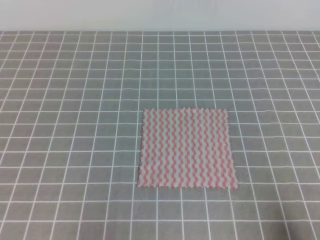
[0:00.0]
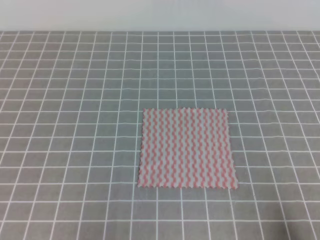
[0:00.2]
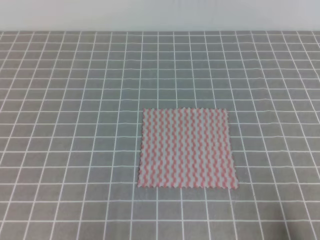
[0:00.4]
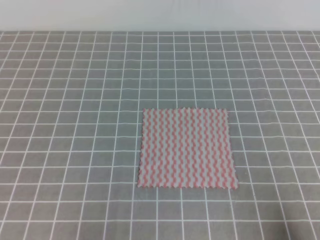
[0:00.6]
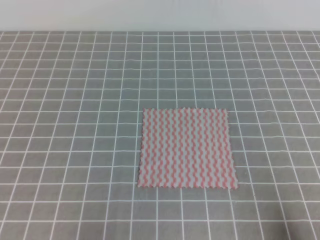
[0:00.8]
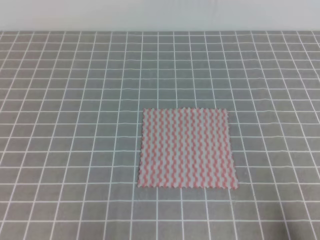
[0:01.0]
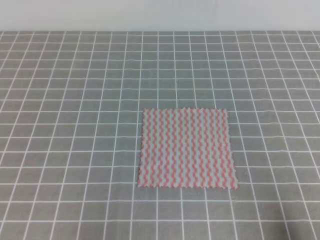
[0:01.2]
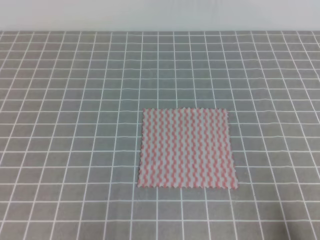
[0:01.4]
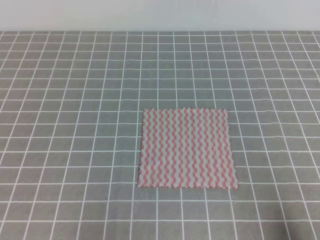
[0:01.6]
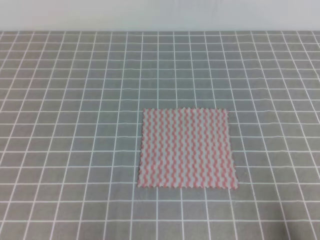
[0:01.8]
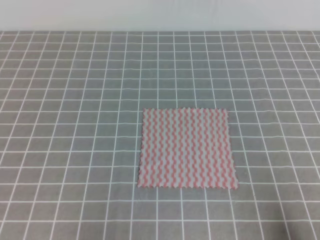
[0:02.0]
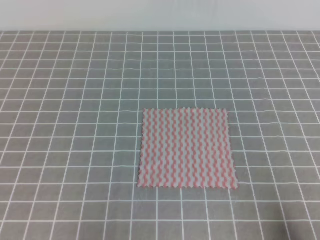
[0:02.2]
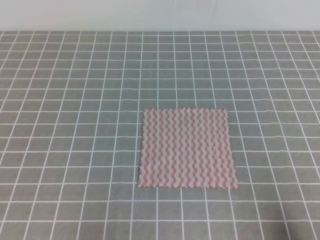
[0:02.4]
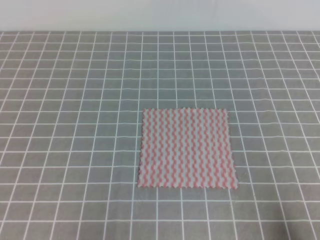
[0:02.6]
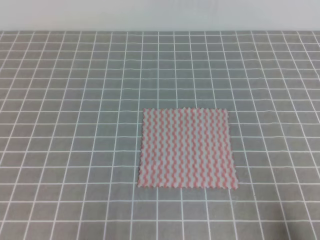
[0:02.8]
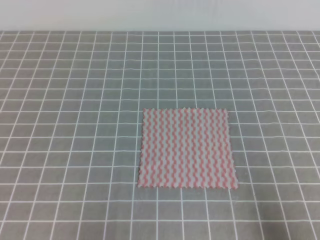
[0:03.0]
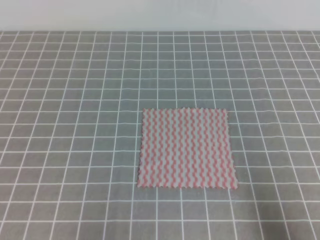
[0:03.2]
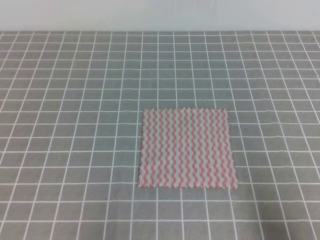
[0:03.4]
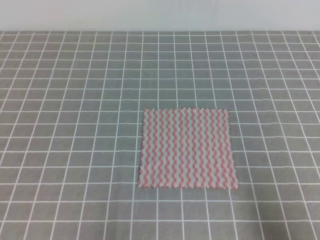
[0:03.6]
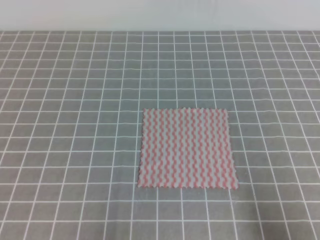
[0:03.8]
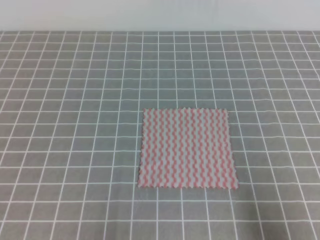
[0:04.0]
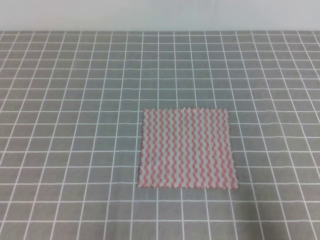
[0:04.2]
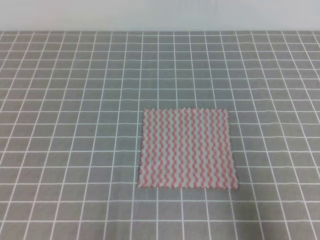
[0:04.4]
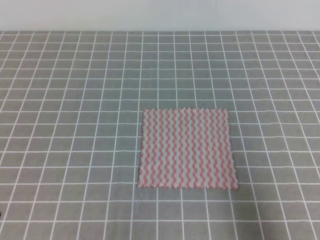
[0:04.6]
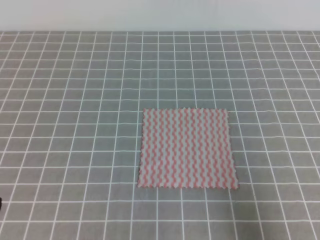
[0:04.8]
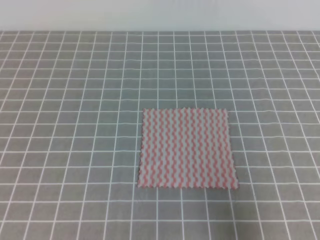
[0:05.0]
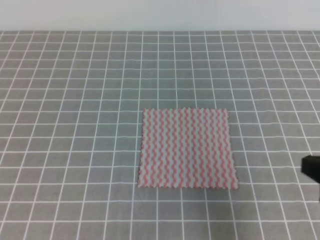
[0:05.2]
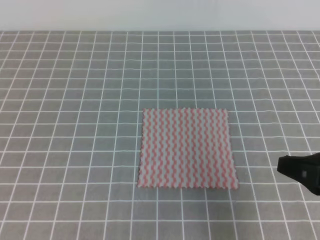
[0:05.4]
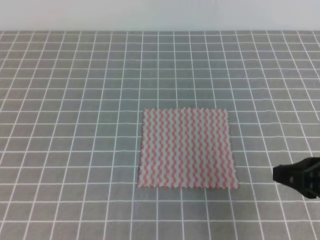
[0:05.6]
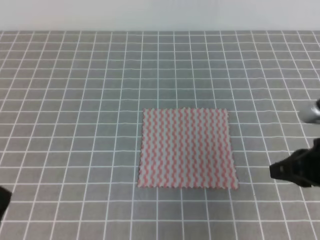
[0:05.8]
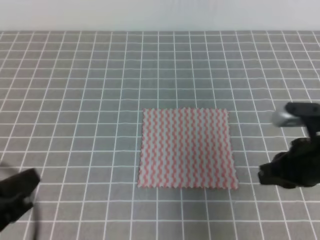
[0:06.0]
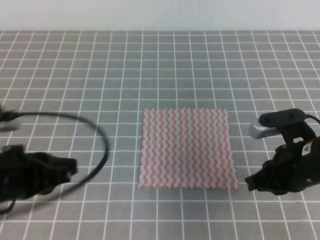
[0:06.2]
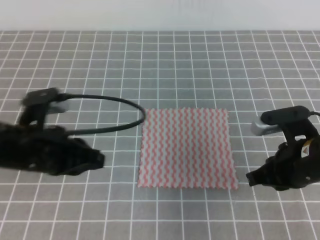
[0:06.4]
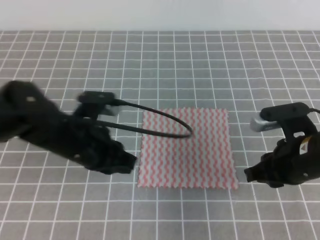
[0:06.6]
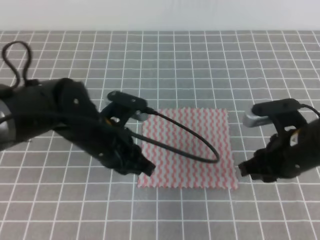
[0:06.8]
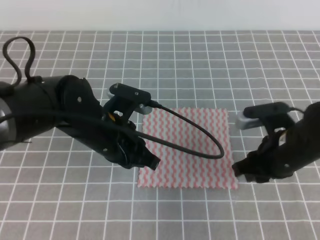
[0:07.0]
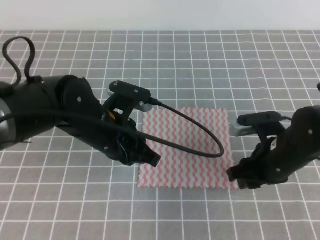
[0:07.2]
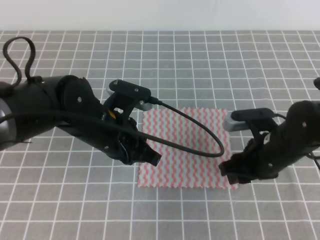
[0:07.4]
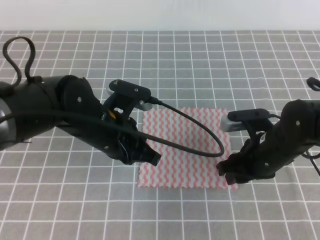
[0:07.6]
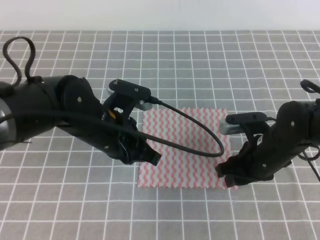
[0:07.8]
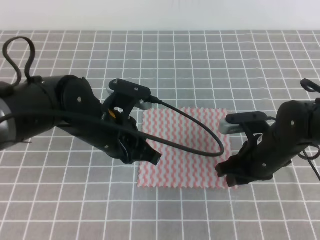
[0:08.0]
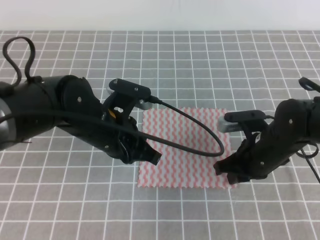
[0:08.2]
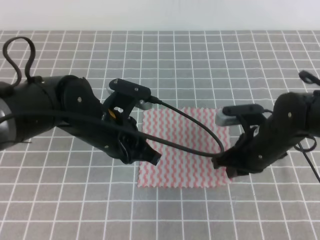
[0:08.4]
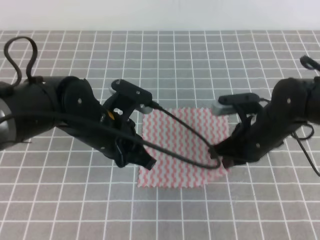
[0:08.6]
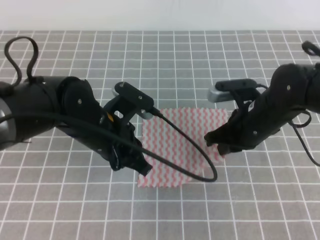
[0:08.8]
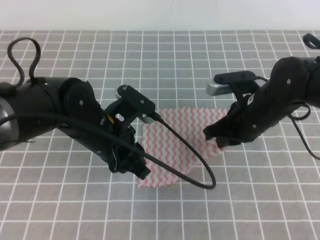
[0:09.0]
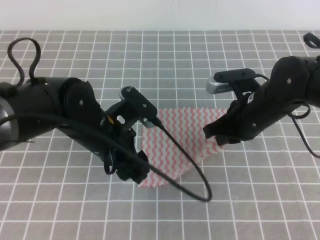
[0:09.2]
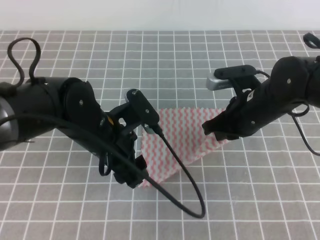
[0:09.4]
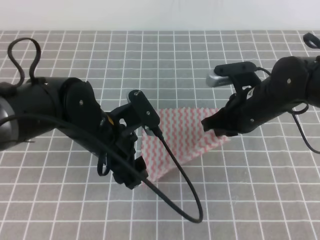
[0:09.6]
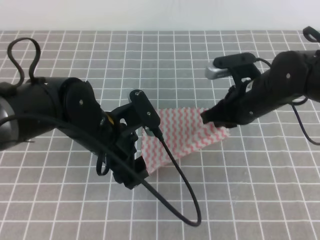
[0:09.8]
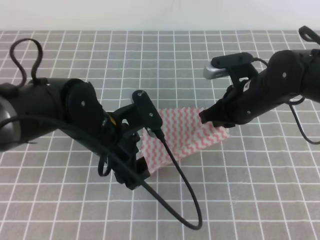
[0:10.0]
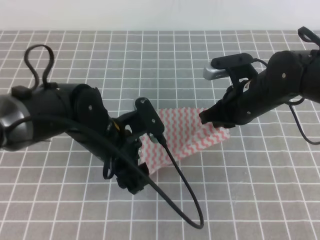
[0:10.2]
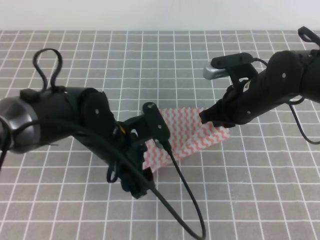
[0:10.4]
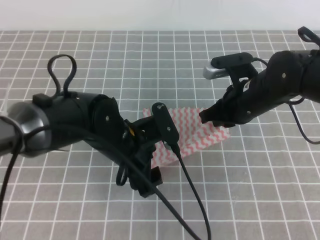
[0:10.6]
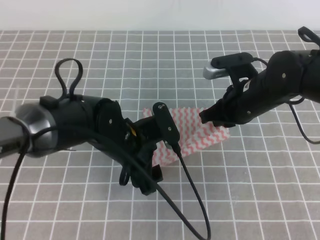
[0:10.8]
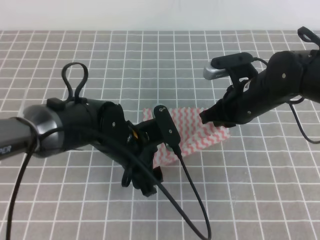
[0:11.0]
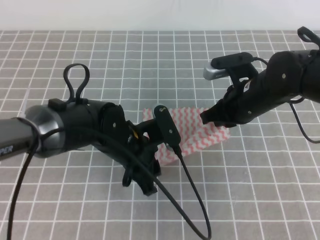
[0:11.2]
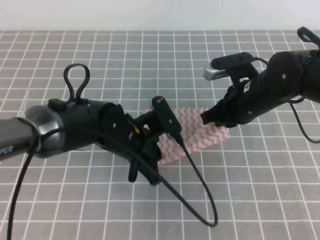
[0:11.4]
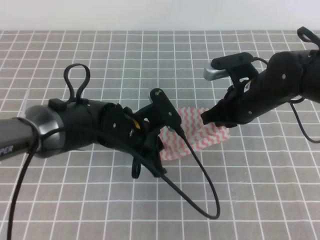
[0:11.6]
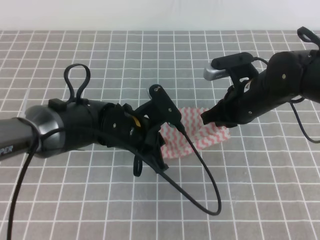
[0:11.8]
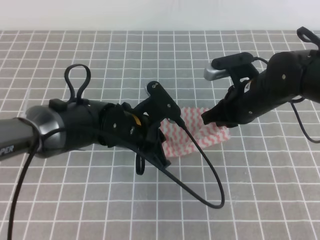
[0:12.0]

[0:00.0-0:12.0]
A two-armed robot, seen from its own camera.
0:00.0 to 0:01.6: Neither gripper changes place.
0:03.0 to 0:04.4: The right gripper goes roughly 5 cm upward.
0:04.4 to 0:06.0: The left gripper is displaced upward by some 5 cm; the right gripper is displaced forward and to the left by some 15 cm.
0:06.0 to 0:07.6: The right gripper heads forward, downward and to the left, covering approximately 10 cm, and opens its fingers; the left gripper goes about 25 cm forward and to the right.
0:07.6 to 0:09.0: The right gripper changes place by about 5 cm, and closes. Meanwhile the left gripper opens its fingers.
0:09.0 to 0:10.4: The left gripper opens its fingers.
0:10.4 to 0:12.0: The left gripper closes up.

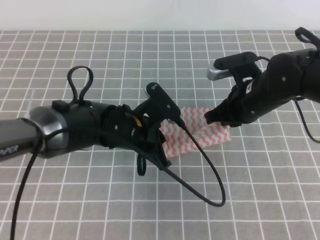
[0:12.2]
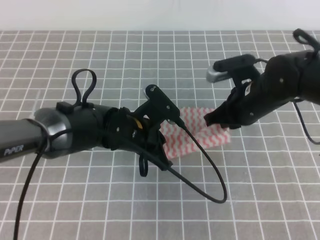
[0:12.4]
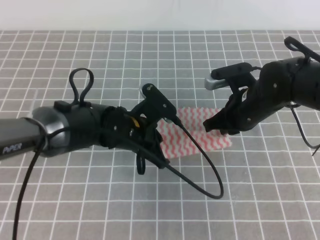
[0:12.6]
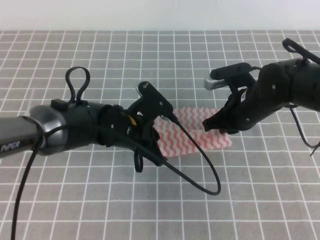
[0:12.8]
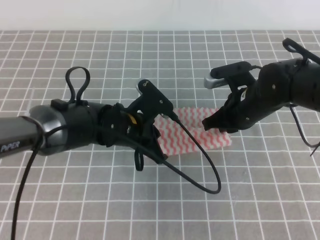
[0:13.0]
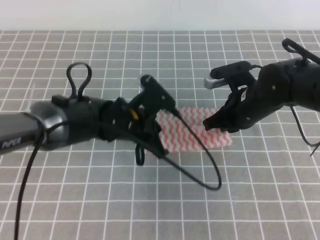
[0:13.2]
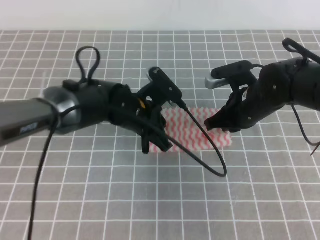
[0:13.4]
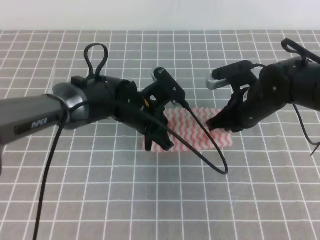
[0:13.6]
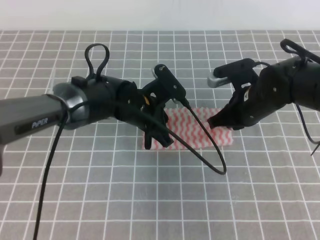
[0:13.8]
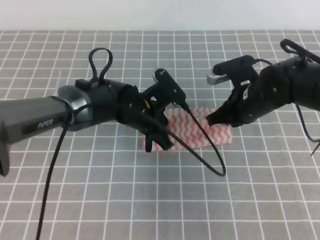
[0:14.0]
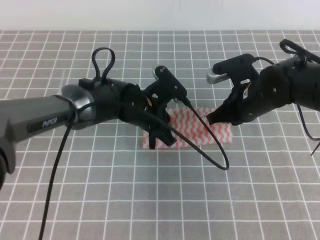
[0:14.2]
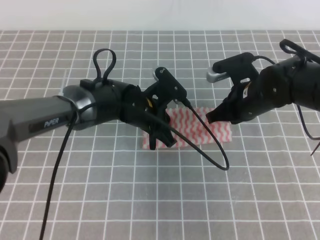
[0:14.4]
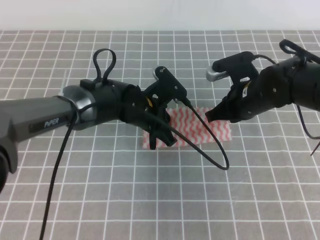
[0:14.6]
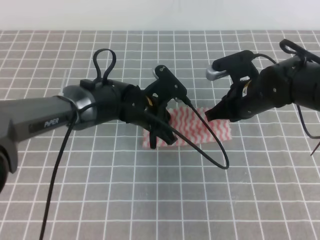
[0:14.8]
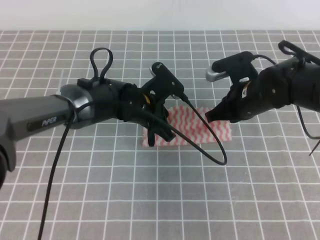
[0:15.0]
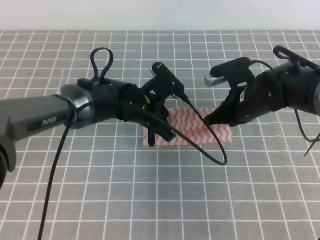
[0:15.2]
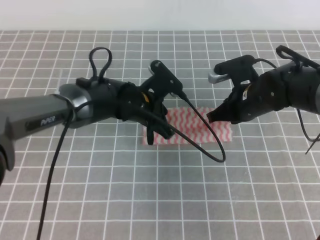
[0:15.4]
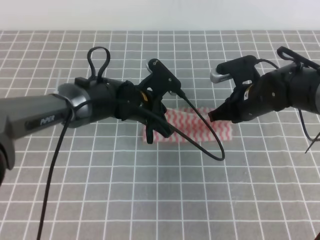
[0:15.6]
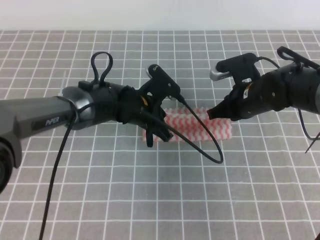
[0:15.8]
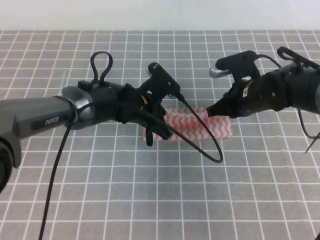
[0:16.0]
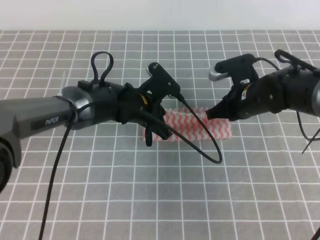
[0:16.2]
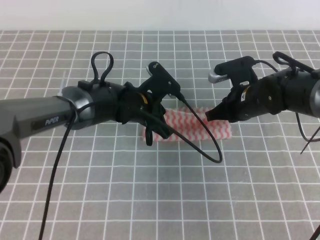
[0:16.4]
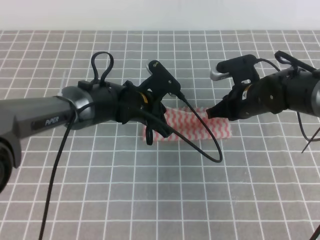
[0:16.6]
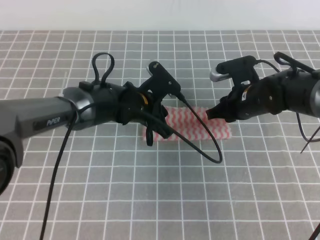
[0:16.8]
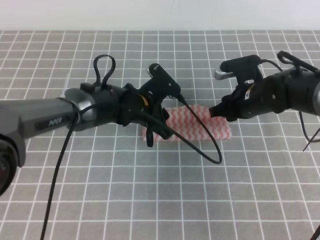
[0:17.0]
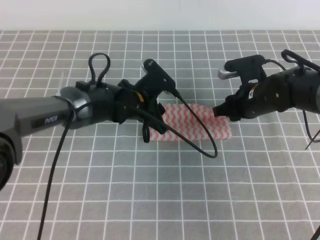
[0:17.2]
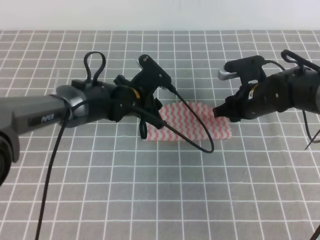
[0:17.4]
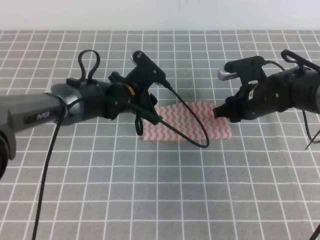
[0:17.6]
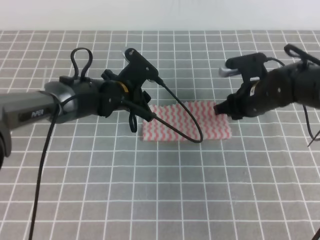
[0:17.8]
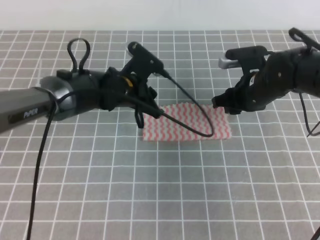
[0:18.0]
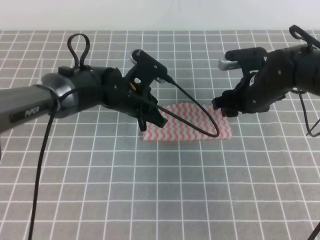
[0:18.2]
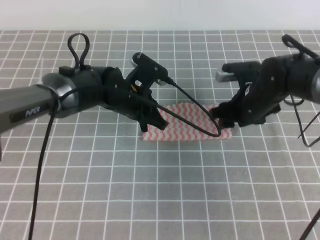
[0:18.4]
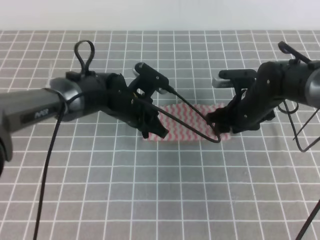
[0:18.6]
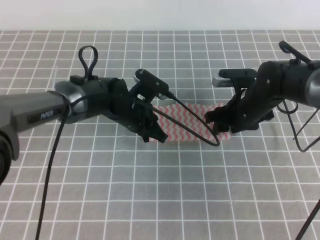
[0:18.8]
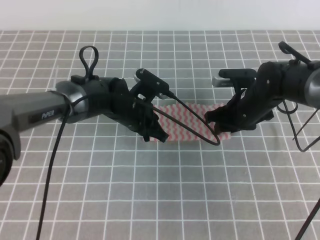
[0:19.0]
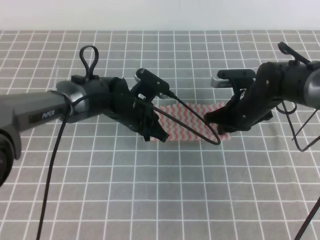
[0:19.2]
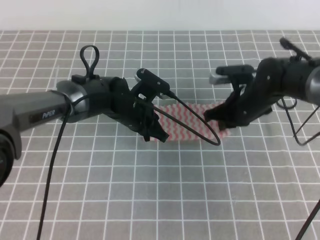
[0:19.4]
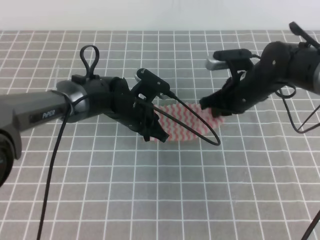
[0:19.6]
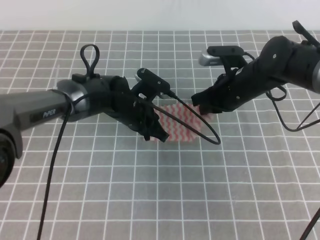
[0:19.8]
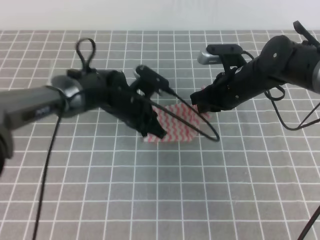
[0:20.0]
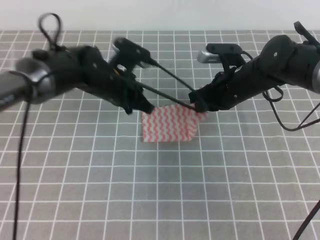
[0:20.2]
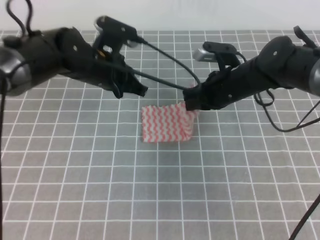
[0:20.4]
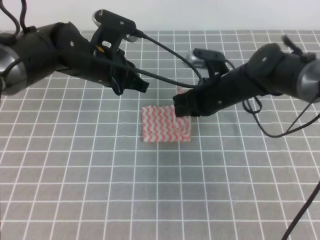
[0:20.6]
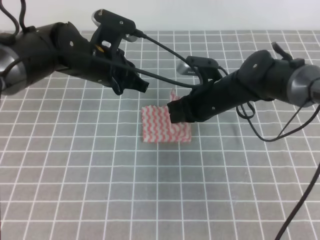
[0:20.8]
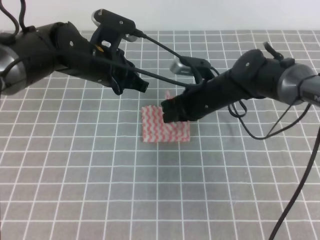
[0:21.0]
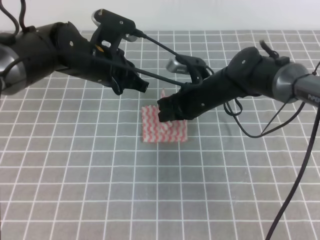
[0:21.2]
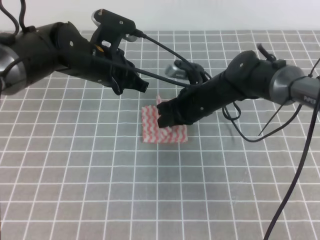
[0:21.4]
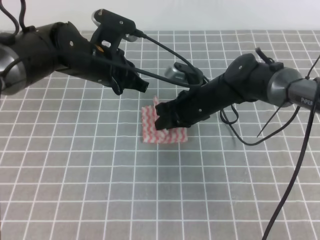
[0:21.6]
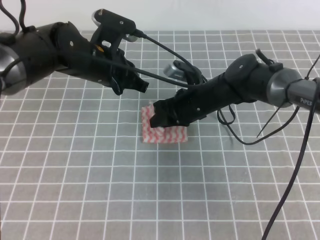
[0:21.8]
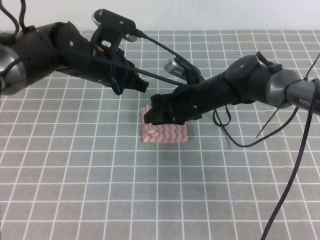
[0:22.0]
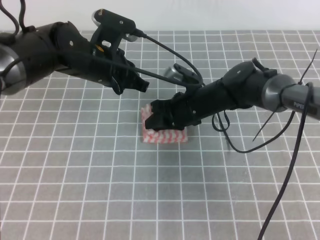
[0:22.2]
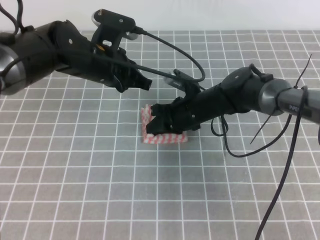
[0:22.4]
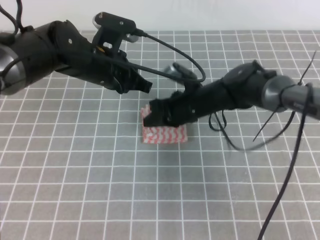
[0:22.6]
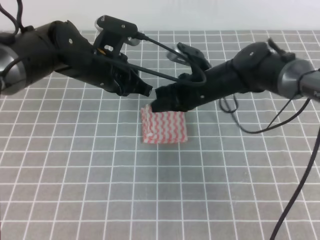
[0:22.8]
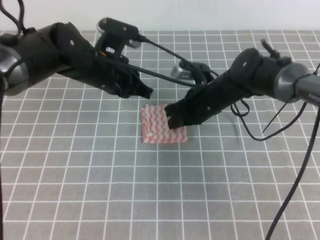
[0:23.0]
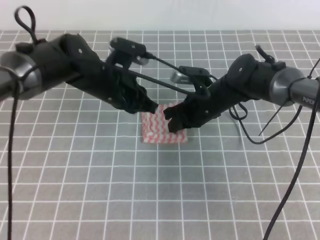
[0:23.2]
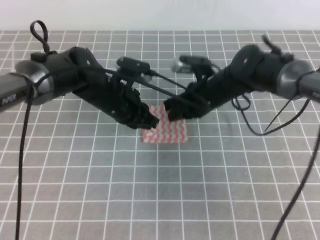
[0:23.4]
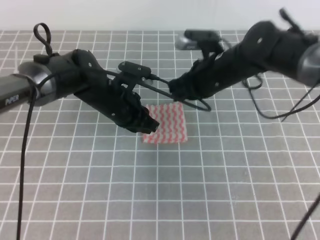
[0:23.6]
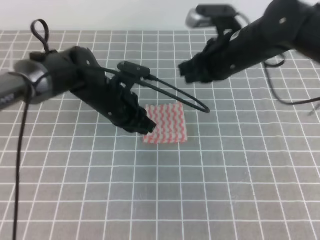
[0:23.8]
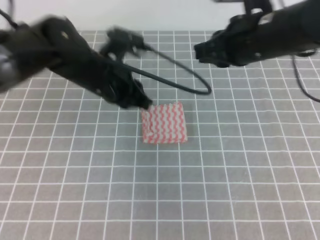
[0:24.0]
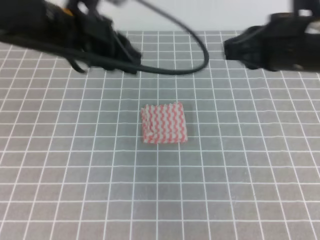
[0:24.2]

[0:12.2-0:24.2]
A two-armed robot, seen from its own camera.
0:12.2 to 0:13.8: The left gripper moves roughly 5 cm.
0:13.8 to 0:16.6: There are only small adjustments of the grippers.
0:16.6 to 0:18.2: The right gripper opens up, while the left gripper opens, then closes once more.
0:18.2 to 0:19.8: The right gripper closes up.
0:19.8 to 0:21.2: The left gripper is displaced upward by approximately 10 cm. The right gripper shifts some 5 cm to the left.
0:21.2 to 0:22.6: The right gripper opens, then closes once more.
0:22.6 to 0:24.2: The left gripper moves upward and backward, roughly 10 cm; the right gripper moves upward, backward and to the right, some 25 cm.
